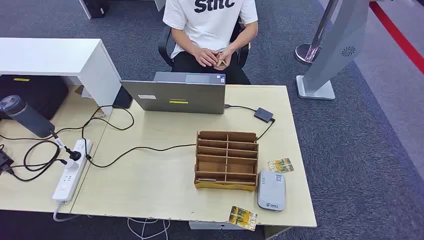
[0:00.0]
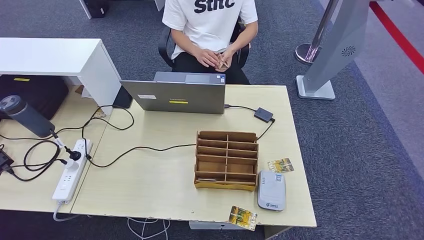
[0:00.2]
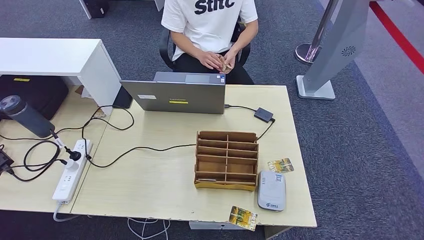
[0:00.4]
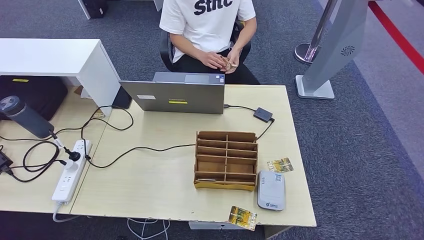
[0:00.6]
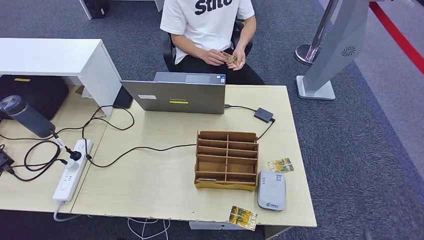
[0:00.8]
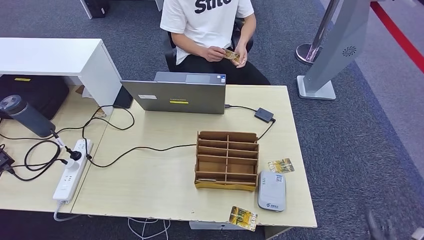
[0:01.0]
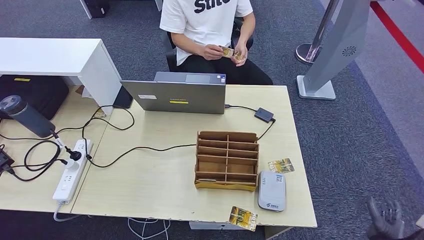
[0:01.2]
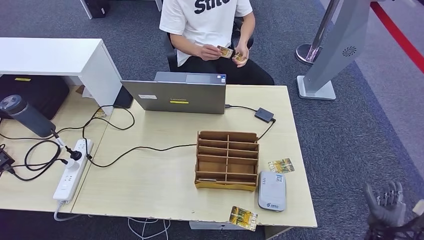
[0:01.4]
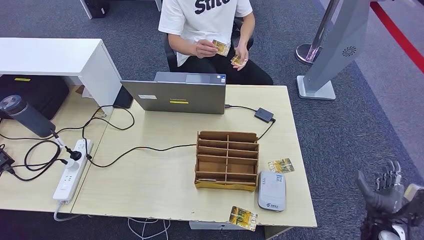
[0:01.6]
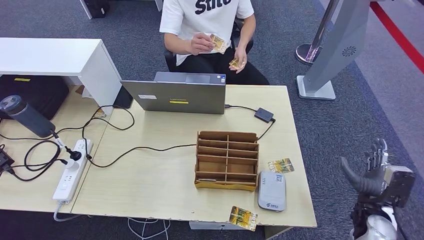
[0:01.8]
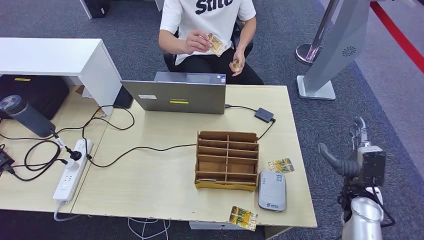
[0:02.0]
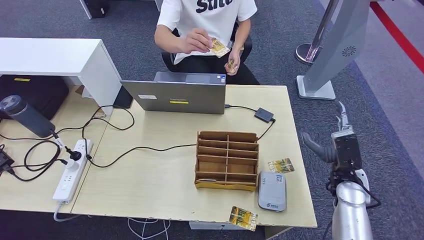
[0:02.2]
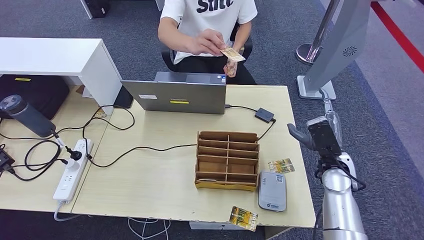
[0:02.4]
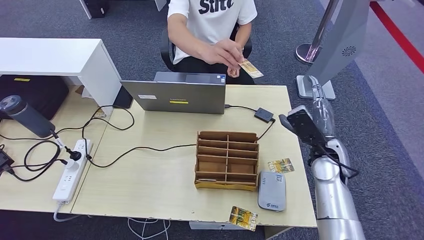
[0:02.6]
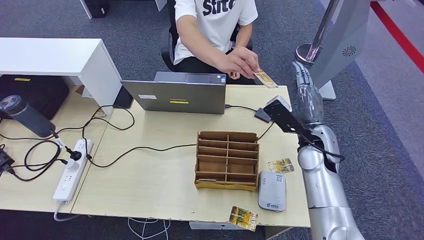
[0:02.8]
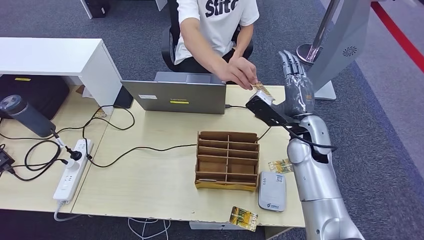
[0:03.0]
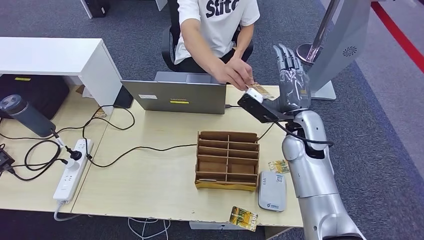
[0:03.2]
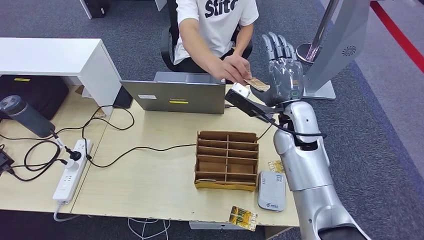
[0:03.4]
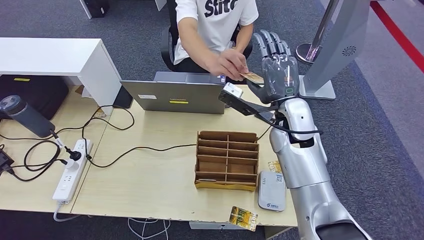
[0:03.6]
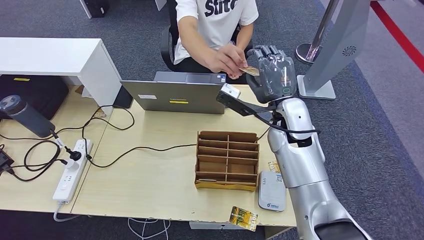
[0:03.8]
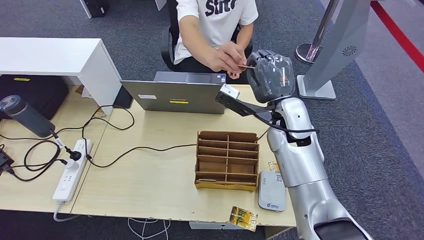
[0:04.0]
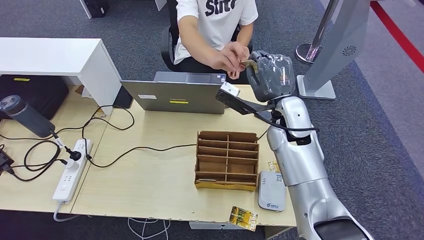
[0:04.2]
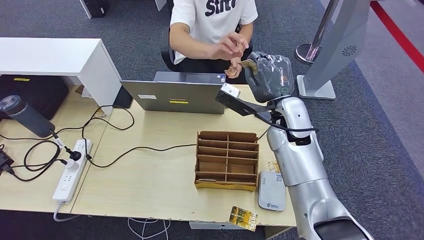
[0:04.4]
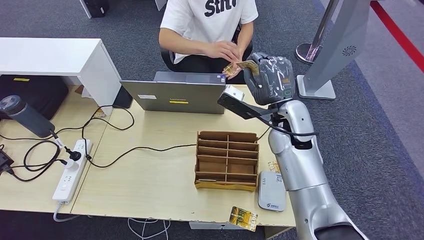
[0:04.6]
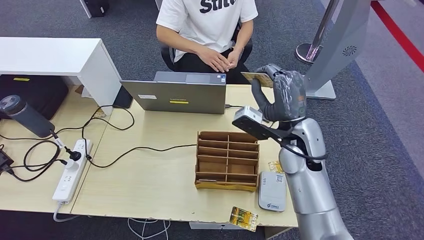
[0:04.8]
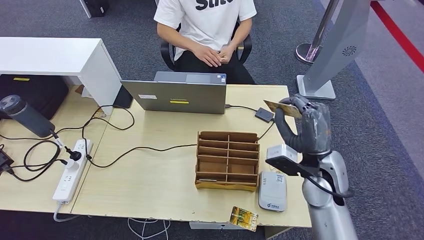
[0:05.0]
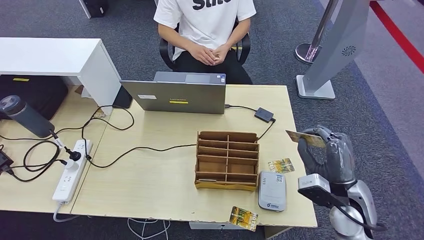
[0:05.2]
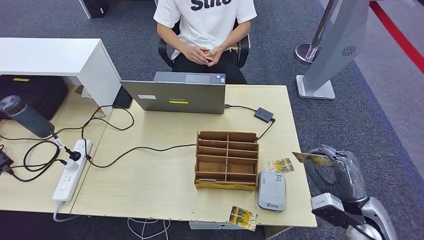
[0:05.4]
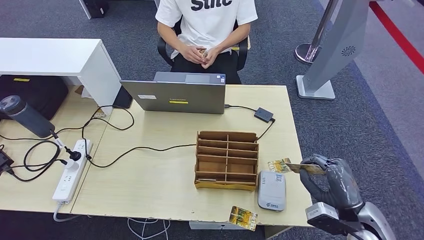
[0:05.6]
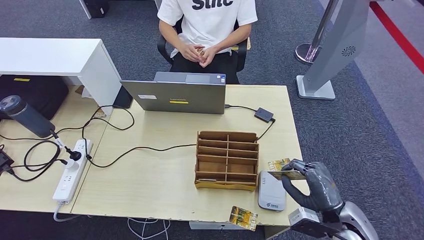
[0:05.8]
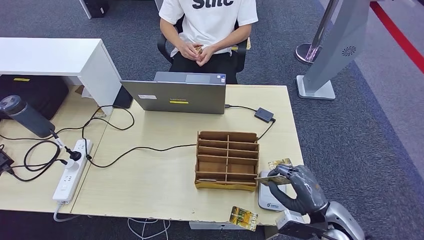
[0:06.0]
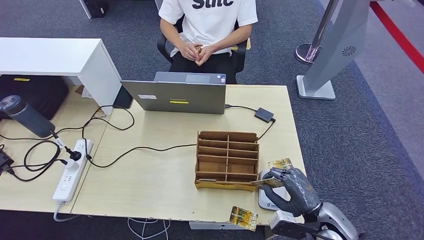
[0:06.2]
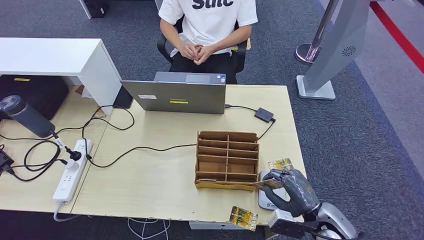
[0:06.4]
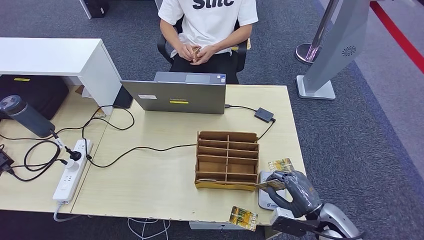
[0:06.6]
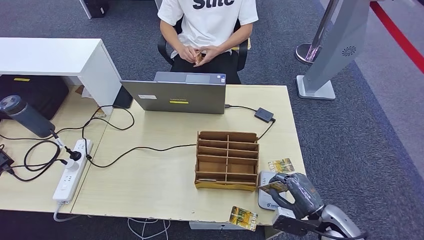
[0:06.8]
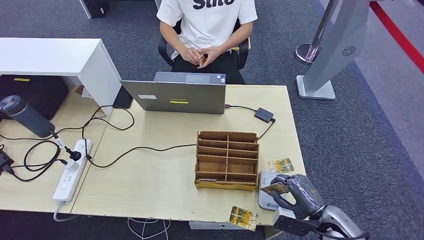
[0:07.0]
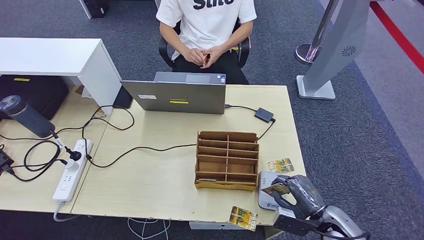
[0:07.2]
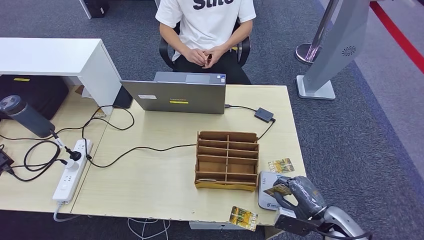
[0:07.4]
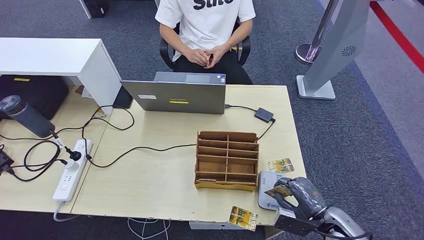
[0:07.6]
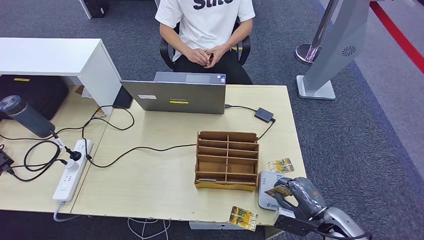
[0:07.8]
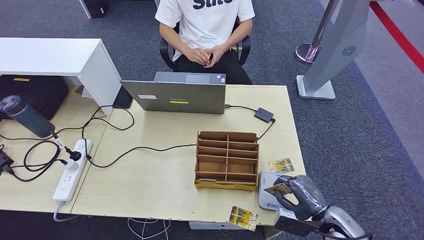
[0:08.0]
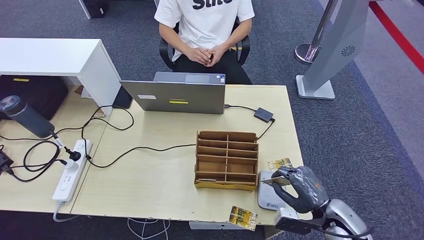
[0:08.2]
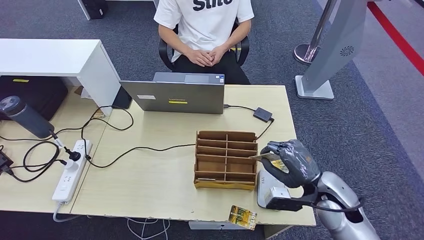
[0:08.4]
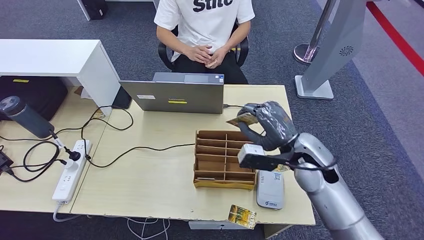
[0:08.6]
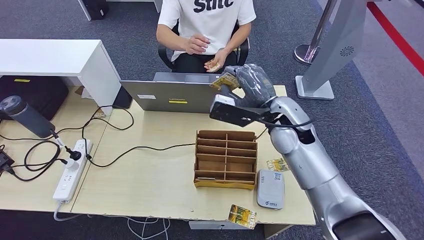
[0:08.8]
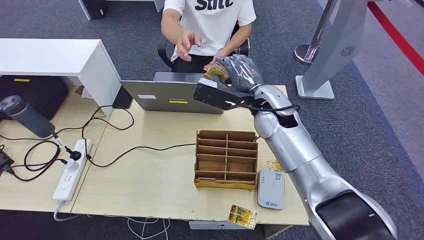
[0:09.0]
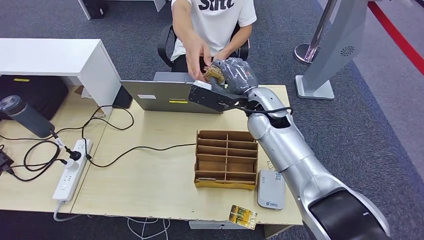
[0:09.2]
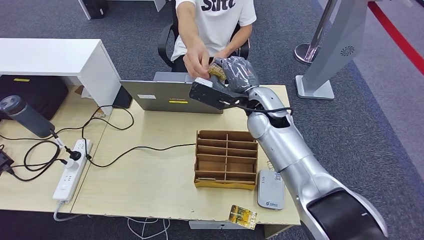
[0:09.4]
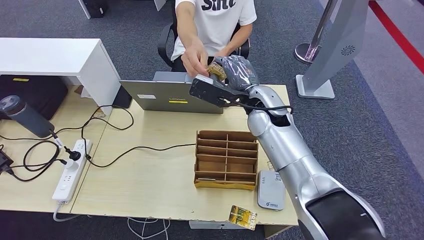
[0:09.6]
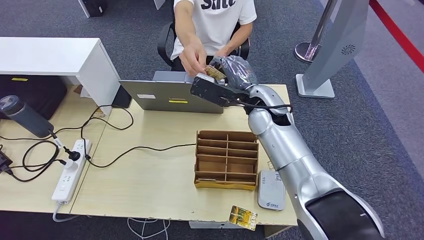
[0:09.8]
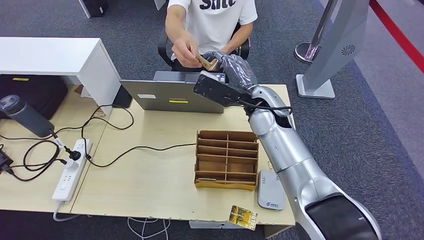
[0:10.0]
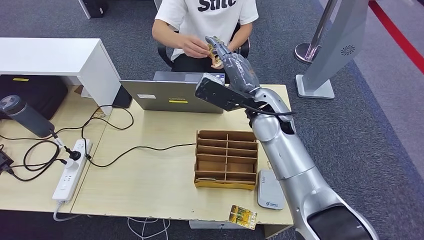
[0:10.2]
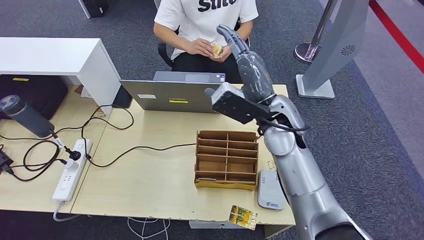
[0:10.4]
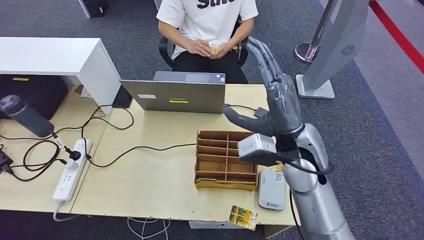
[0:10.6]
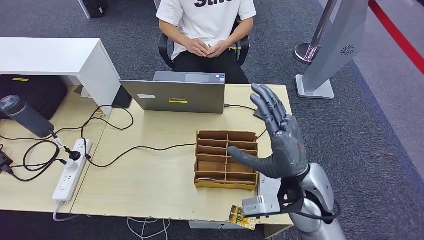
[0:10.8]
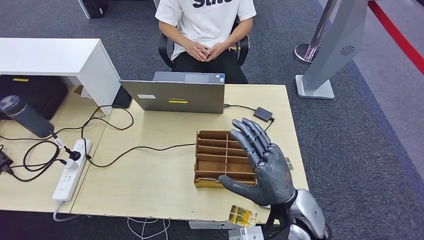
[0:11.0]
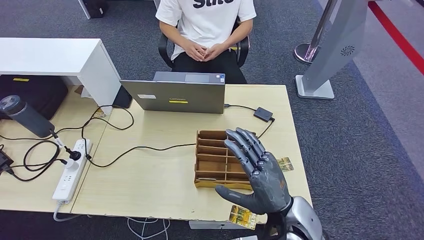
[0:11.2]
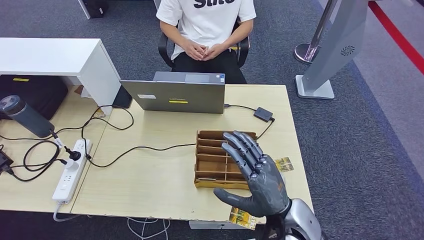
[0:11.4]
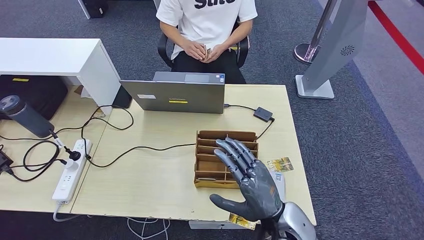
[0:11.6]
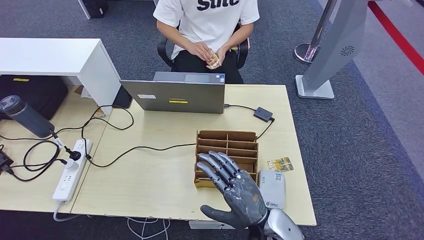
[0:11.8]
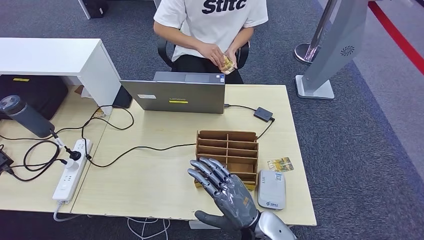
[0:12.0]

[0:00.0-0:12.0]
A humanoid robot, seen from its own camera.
Step, 0:00.0 to 0:05.0: Take the ID card from the person's hand.
Step, 0:05.2 to 0:08.0: Place the ID card on the card reader.
Step, 0:08.2 to 0:10.4: Hand the ID card to the person.
0:01.6 to 0:03.0: The right hand heads to the left, upward and forward, covering approximately 35 cm.
0:03.0 to 0:04.4: The right hand travels to the left by some 5 cm.
0:04.4 to 0:06.0: The right hand travels backward, downward and to the right by some 30 cm.
0:06.0 to 0:07.6: The right hand goes approximately 5 cm downward.
0:07.6 to 0:09.0: The right hand travels upward, forward and to the left by some 40 cm.
0:10.4 to 0:12.0: The right hand travels backward and downward by about 25 cm.

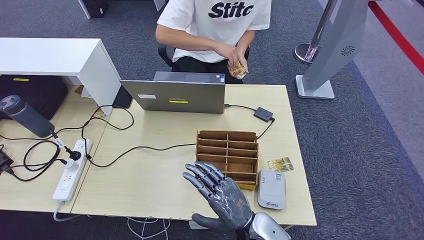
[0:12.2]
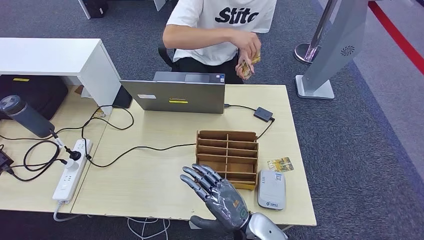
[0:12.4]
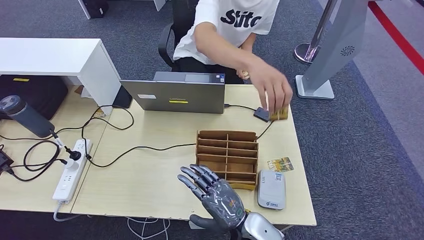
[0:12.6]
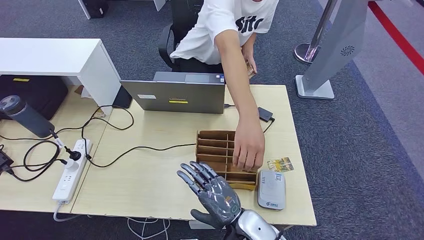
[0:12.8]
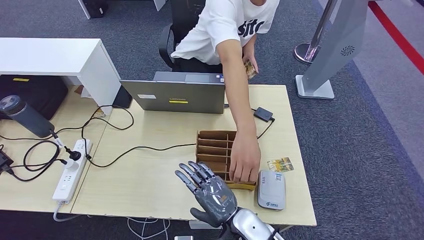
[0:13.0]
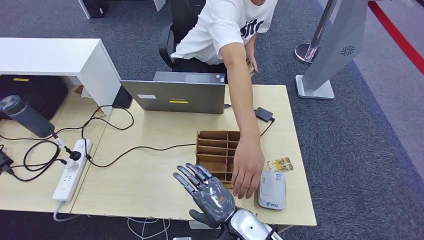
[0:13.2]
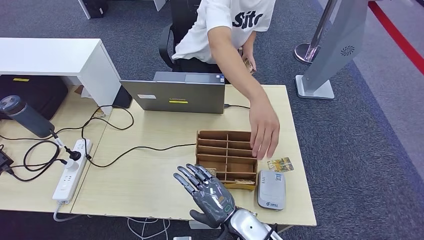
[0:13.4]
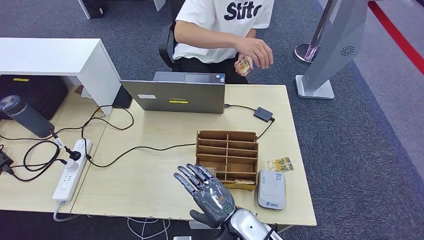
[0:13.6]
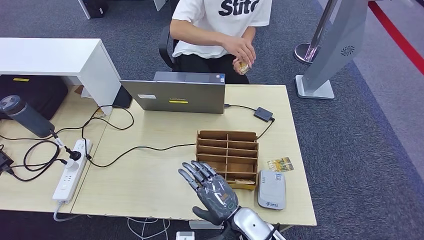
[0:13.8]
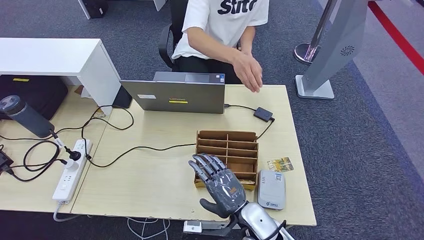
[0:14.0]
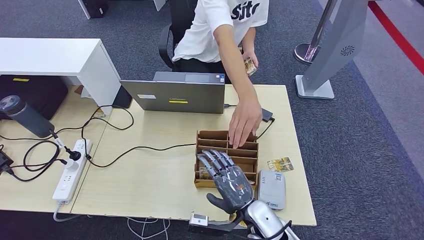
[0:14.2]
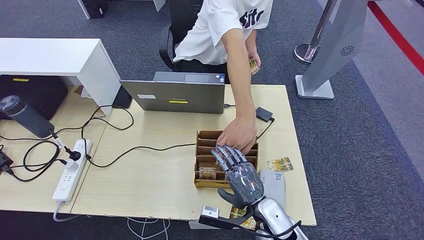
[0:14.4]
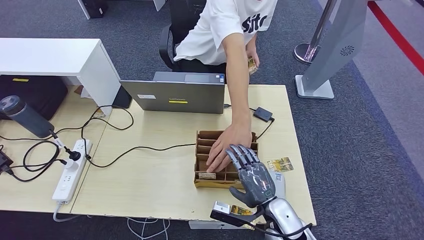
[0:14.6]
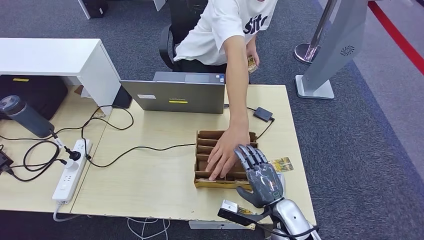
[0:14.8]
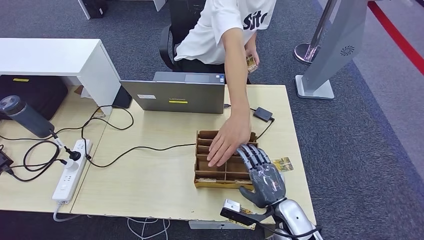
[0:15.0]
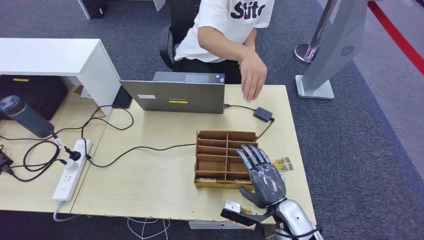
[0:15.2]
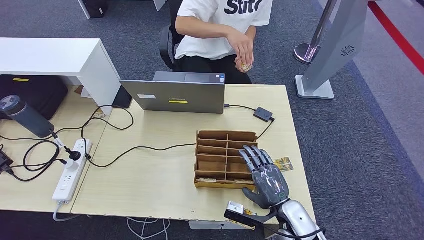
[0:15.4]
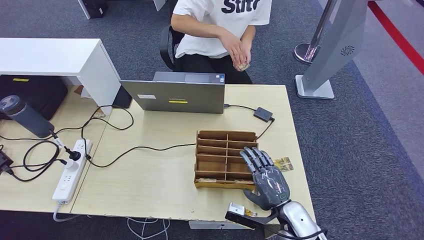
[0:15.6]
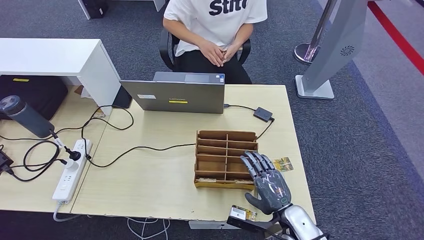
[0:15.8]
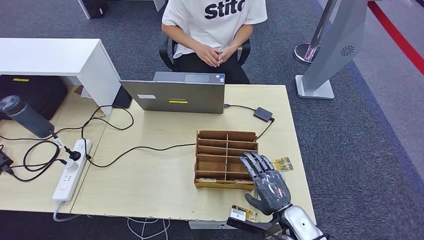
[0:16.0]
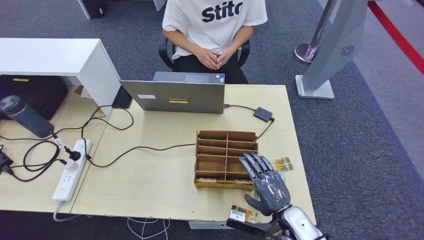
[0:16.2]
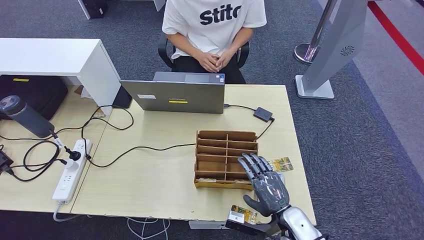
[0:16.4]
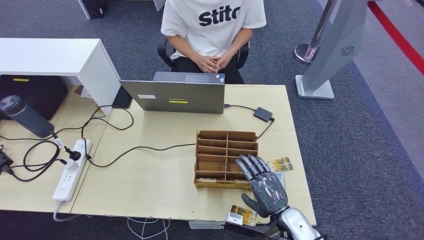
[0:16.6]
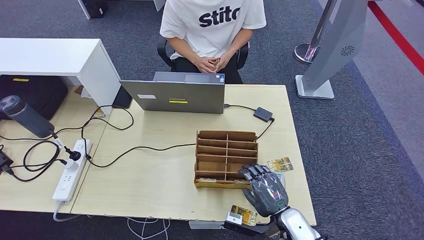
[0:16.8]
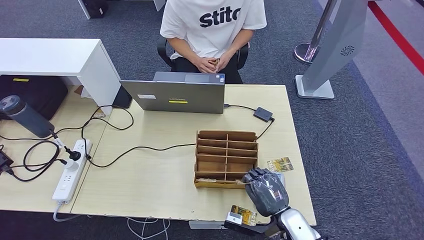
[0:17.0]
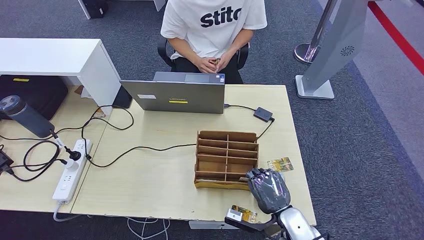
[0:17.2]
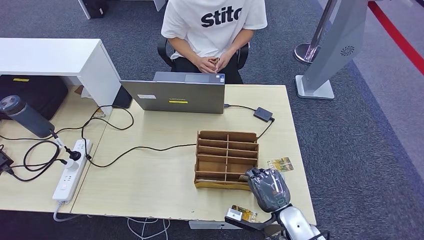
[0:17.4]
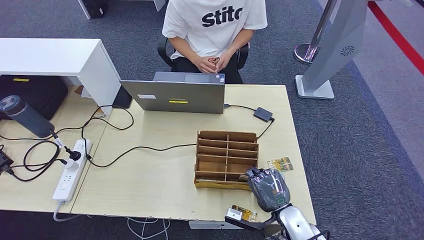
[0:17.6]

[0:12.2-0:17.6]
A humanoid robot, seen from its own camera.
0:12.2 to 0:13.6: There are only small adjustments of the hands.
0:13.6 to 0:15.0: The right hand travels to the right by some 10 cm.
0:15.0 to 0:17.6: There are only small adjustments of the hands.
